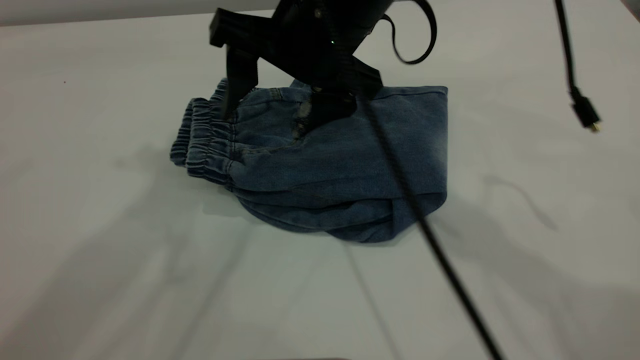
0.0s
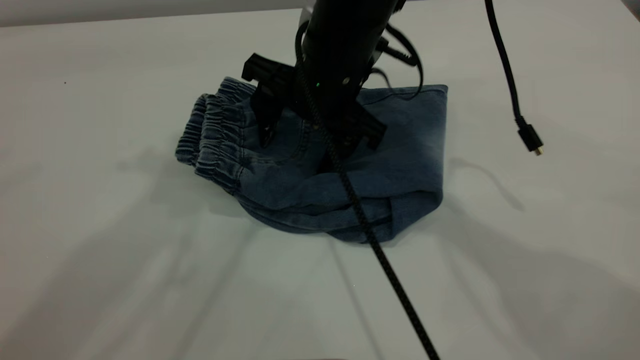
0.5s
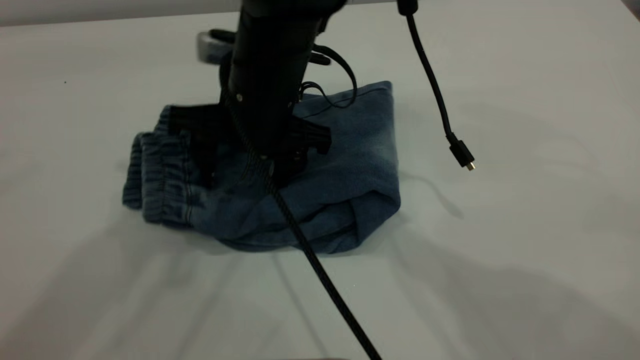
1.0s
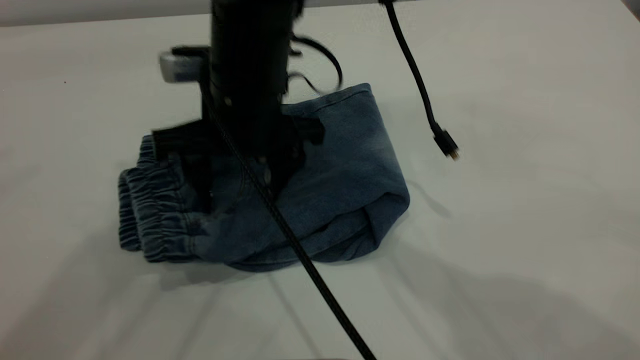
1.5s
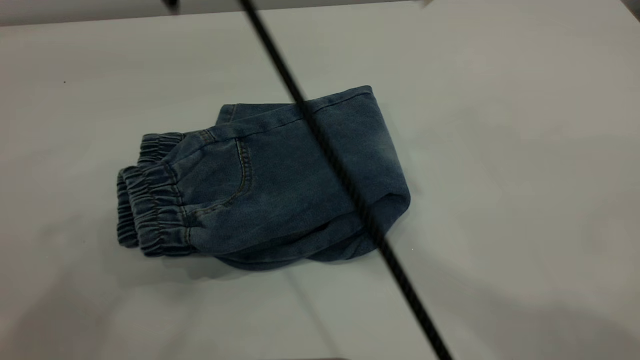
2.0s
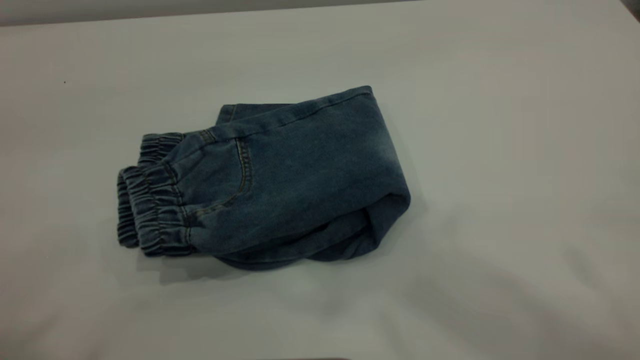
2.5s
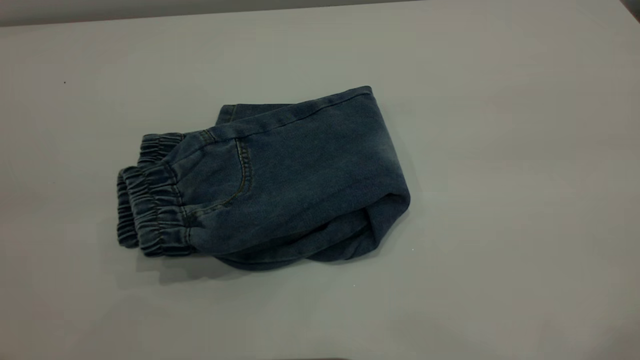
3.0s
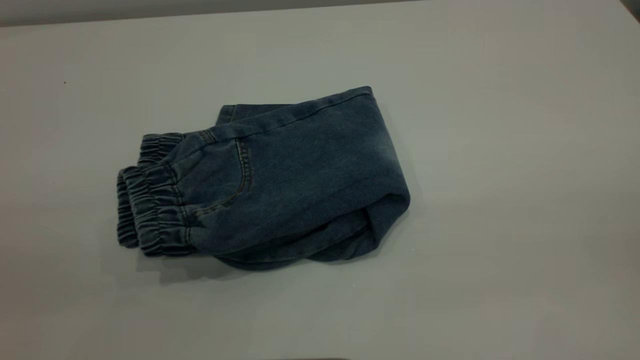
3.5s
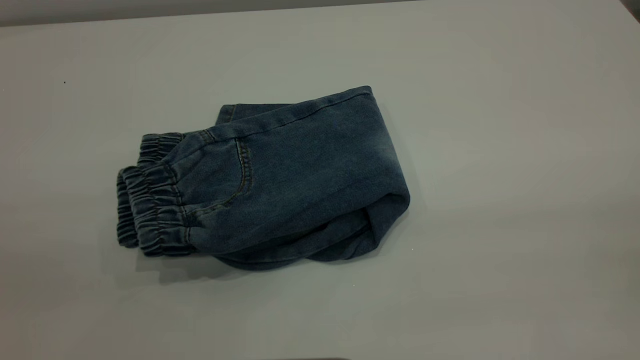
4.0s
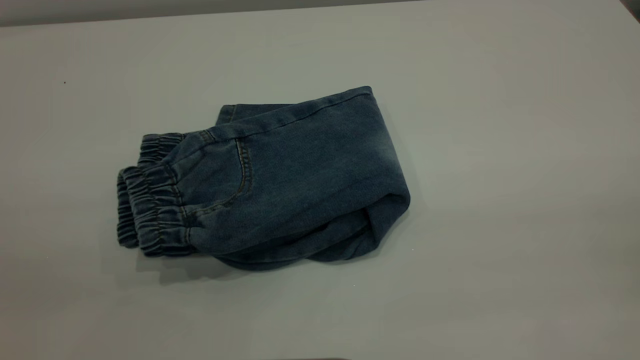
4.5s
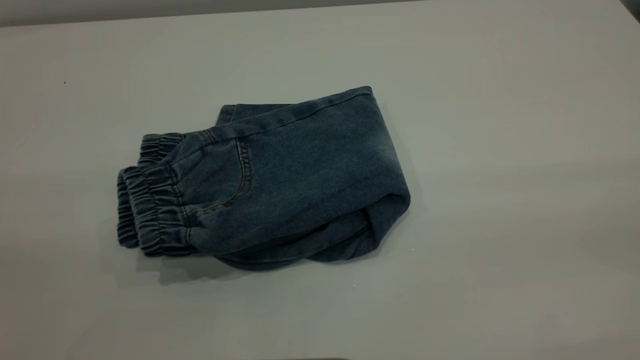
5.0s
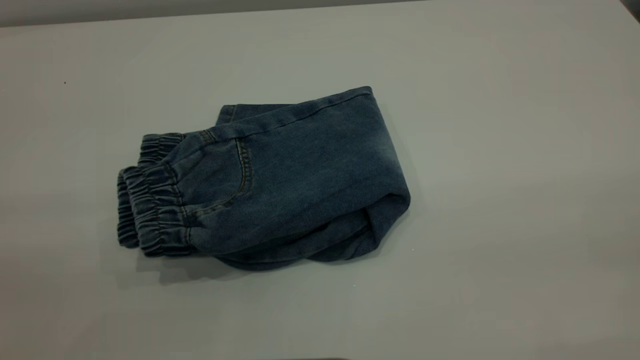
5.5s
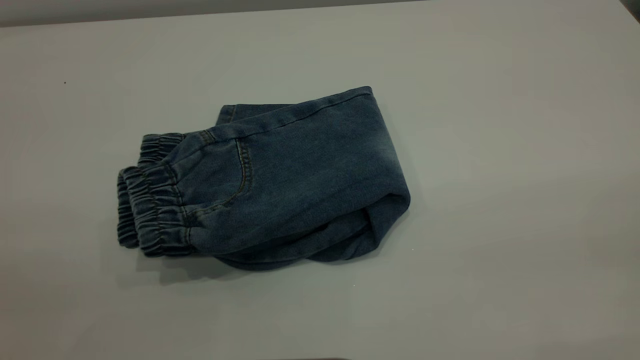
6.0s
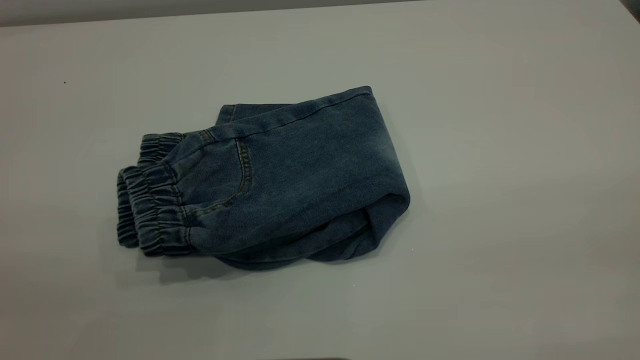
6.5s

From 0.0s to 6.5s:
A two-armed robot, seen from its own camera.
From 0.0s to 2.0s: The left gripper moves backward and upward, about 15 cm, while the right gripper moves upward and to the left, approximately 15 cm.
From 2.0s to 4.5s: The left gripper heads downward and backward, covering approximately 25 cm. The right gripper moves to the right and backward, about 50 cm.

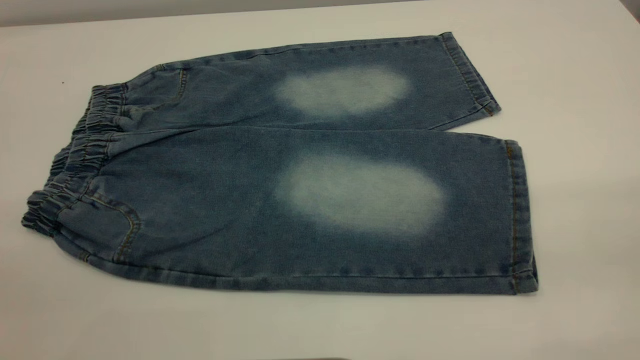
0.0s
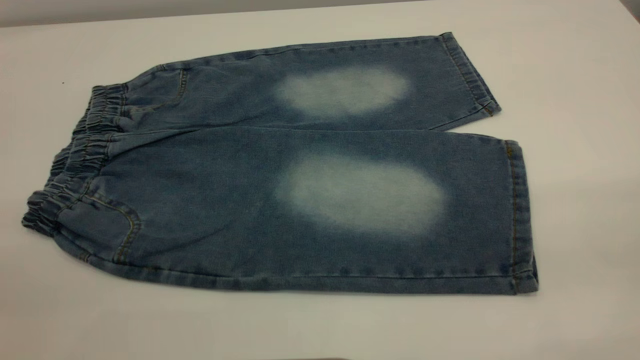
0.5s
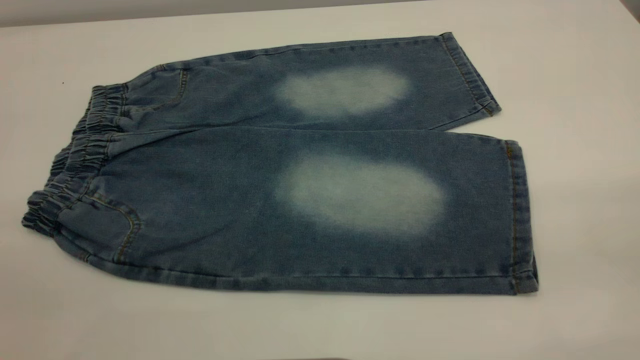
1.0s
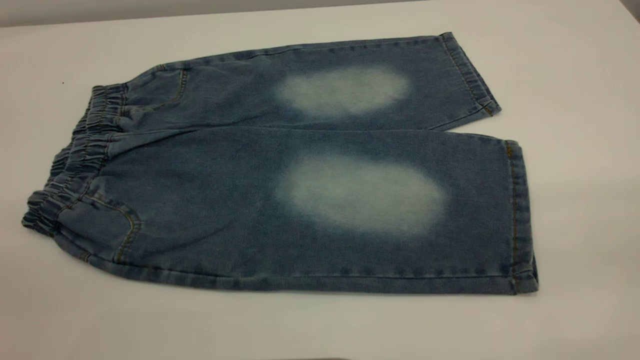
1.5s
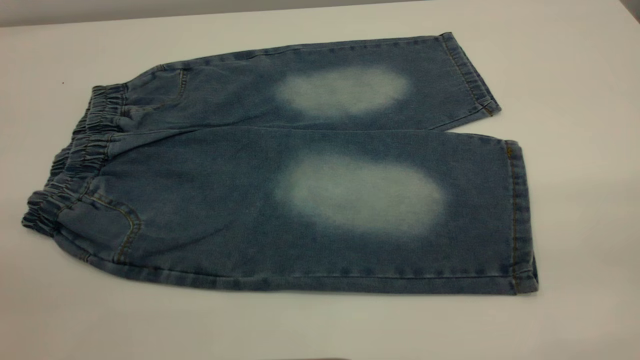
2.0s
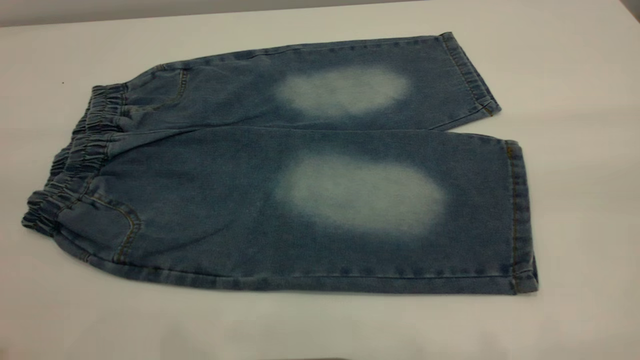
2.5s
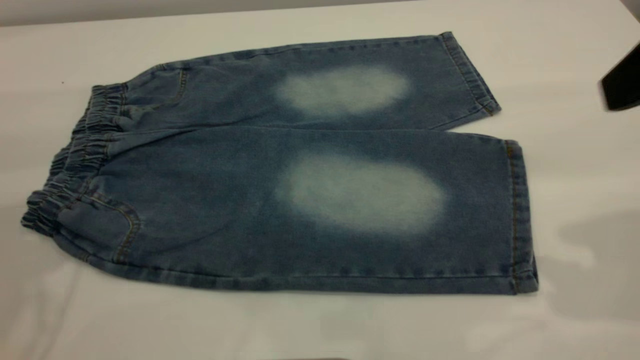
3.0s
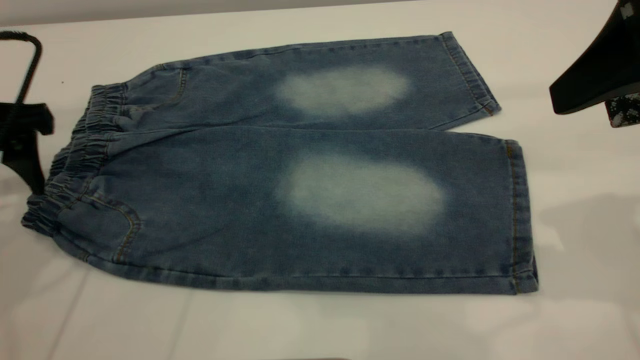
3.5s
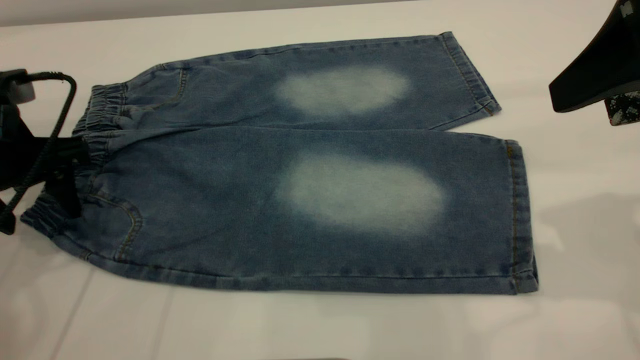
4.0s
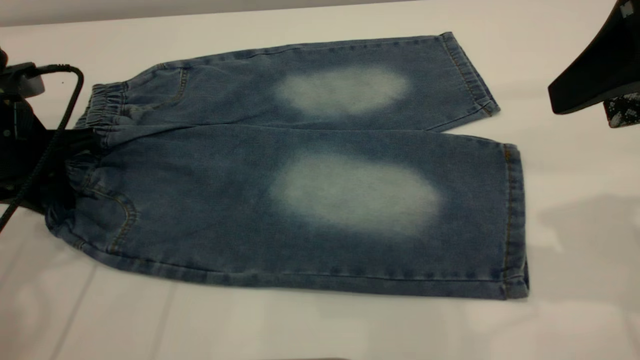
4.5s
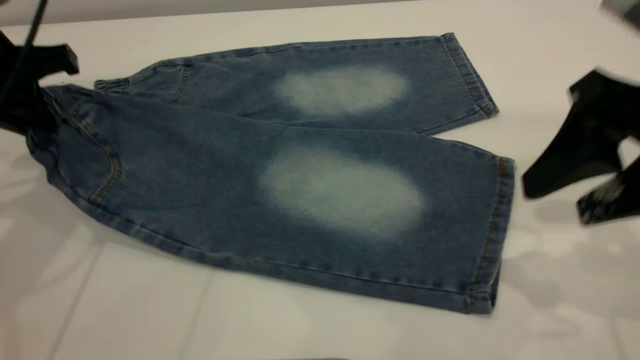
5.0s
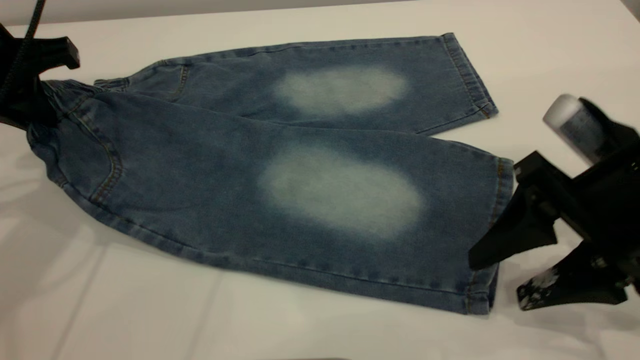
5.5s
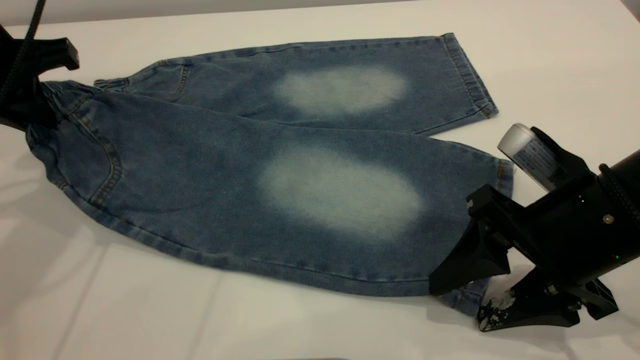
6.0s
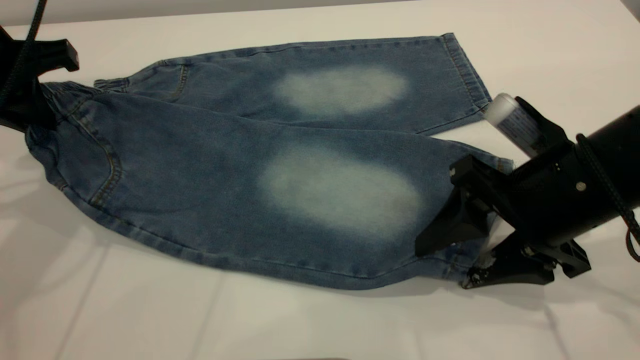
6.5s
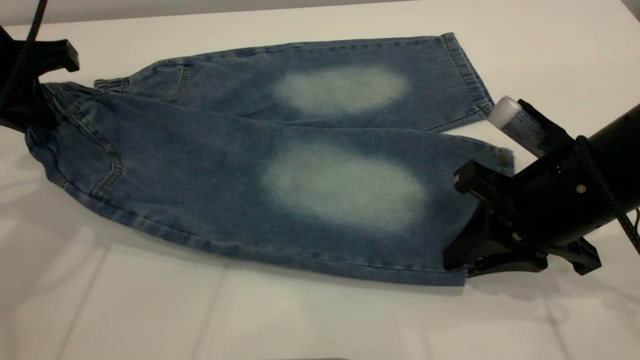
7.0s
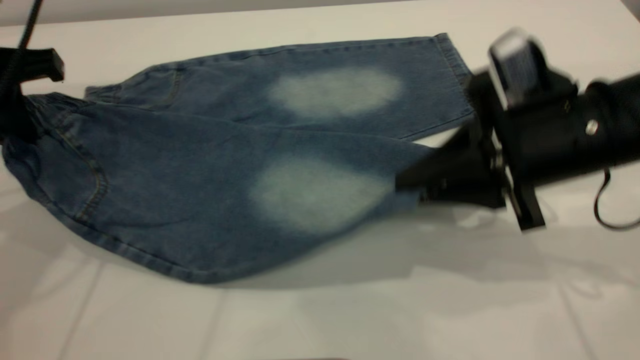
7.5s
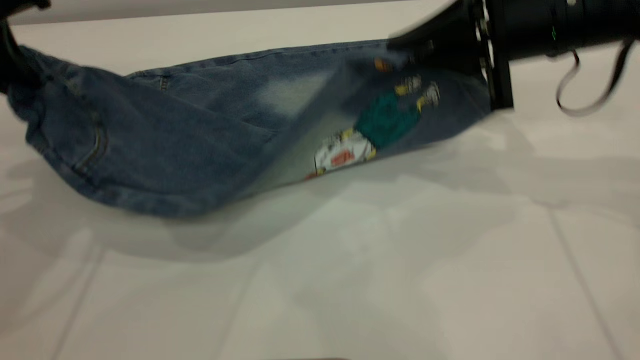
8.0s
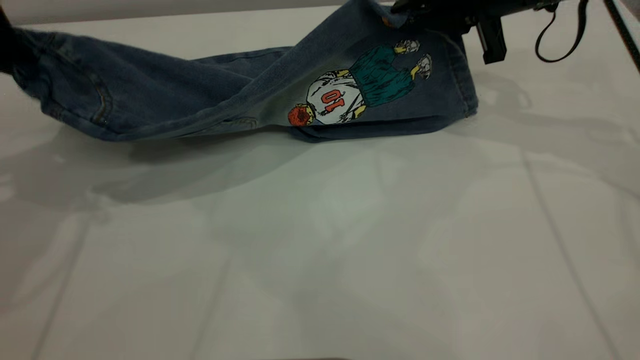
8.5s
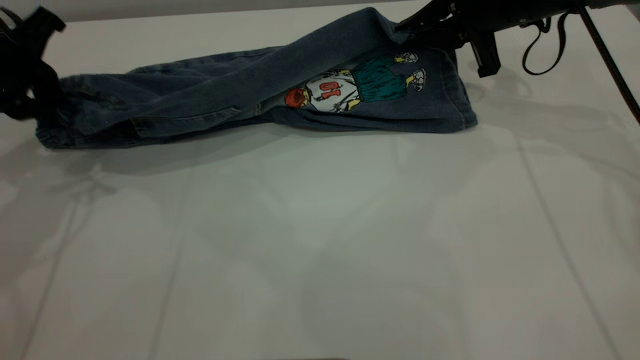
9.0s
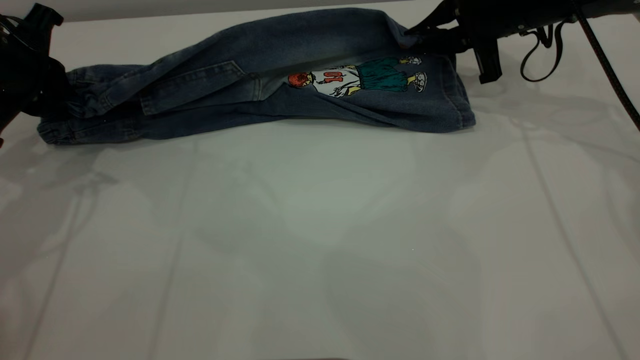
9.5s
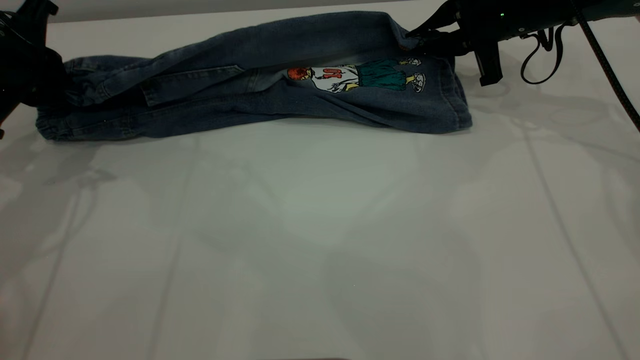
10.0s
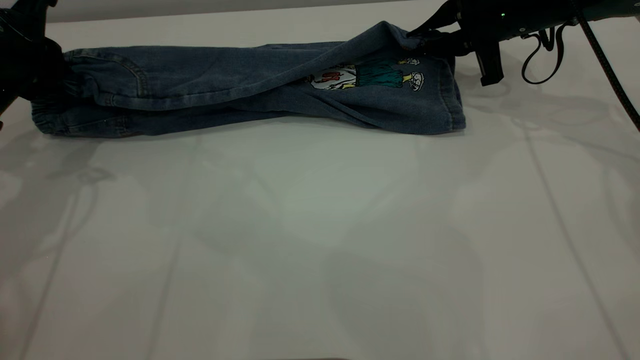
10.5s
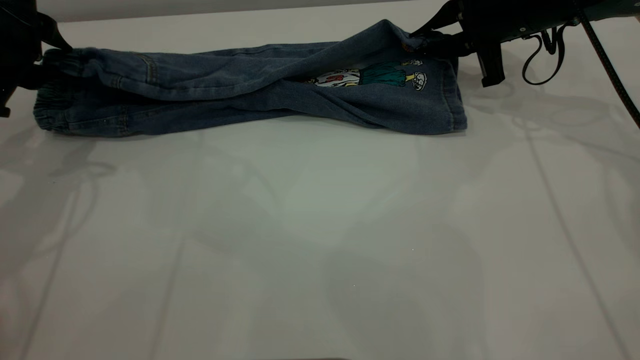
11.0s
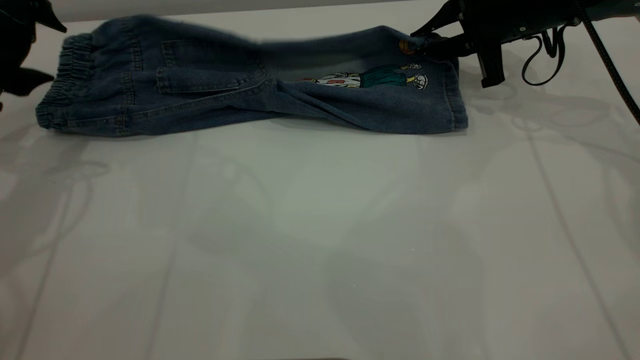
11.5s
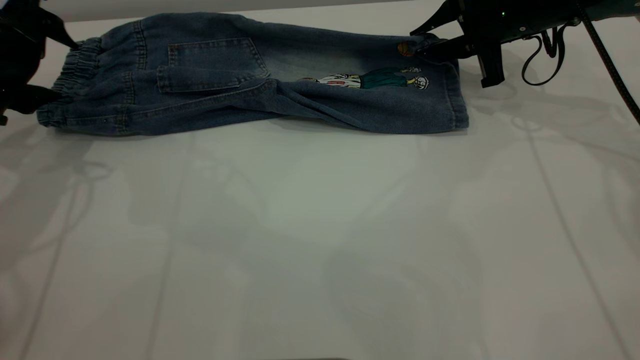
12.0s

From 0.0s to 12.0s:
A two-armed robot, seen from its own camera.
From 0.0s to 2.0s: Neither gripper changes place.
From 2.0s to 4.0s: The left gripper is displaced forward and downward by about 35 cm. The right gripper travels forward by some 20 cm.
From 4.0s to 6.0s: The left gripper is displaced upward by approximately 5 cm, and closes its fingers. Meanwhile the right gripper heads downward, covering roughly 15 cm.
From 6.0s to 8.0s: The left gripper shifts some 5 cm upward; the right gripper travels forward and upward by some 15 cm, and closes up.
From 8.0s to 10.0s: The right gripper is displaced forward and downward by about 10 cm. Meanwhile the left gripper travels downward and forward by approximately 10 cm.
From 10.0s to 12.0s: The left gripper opens up.

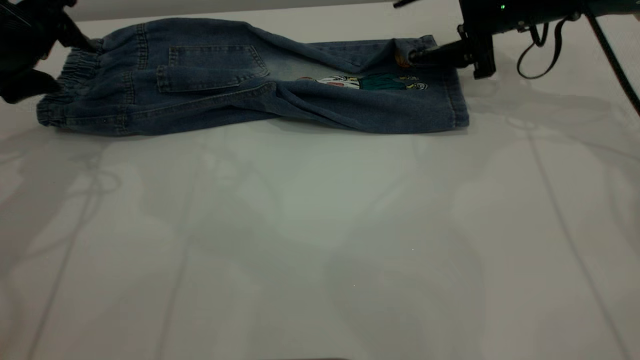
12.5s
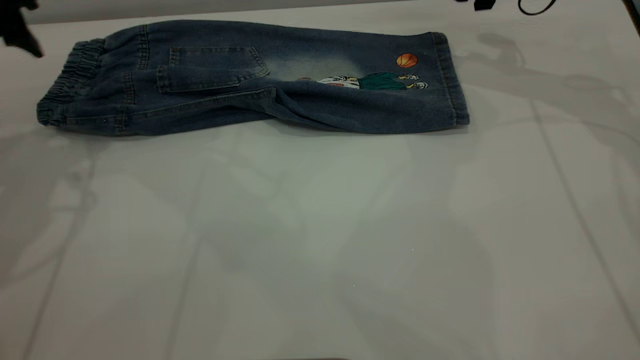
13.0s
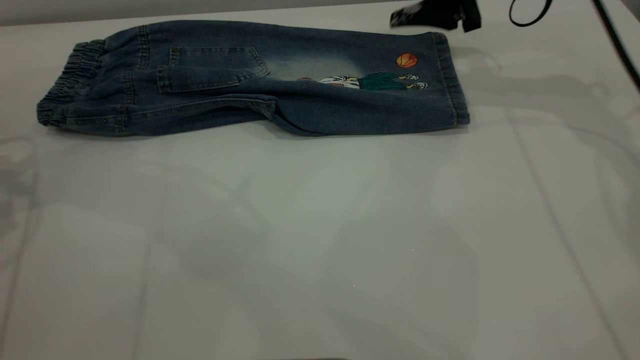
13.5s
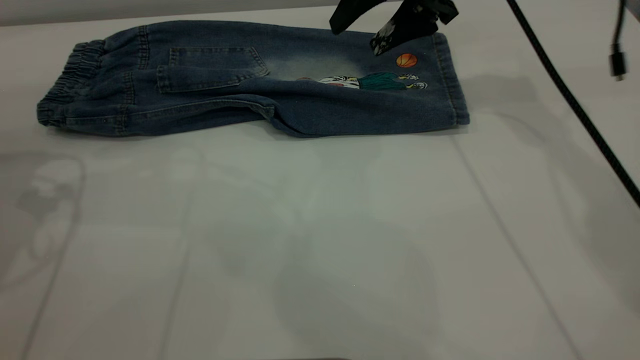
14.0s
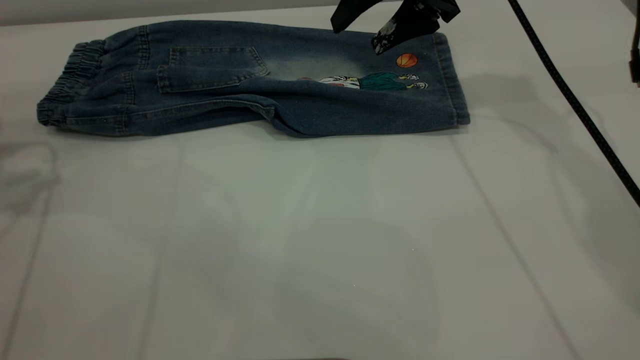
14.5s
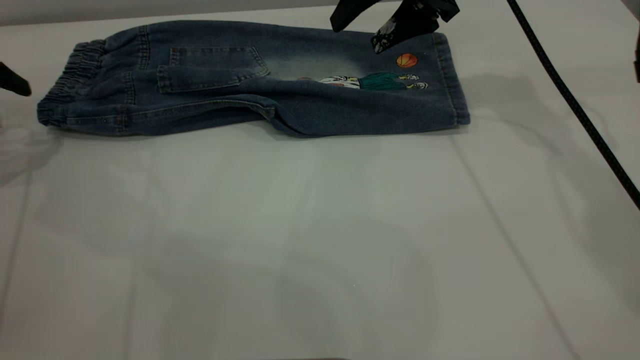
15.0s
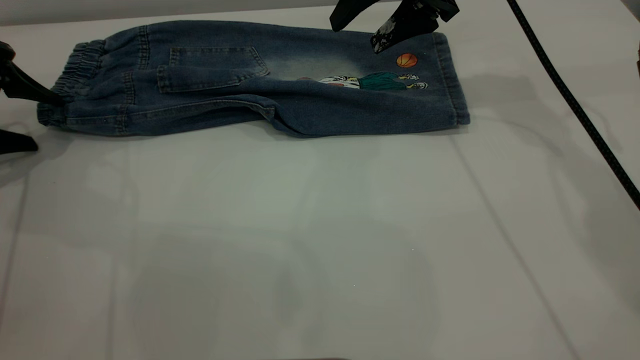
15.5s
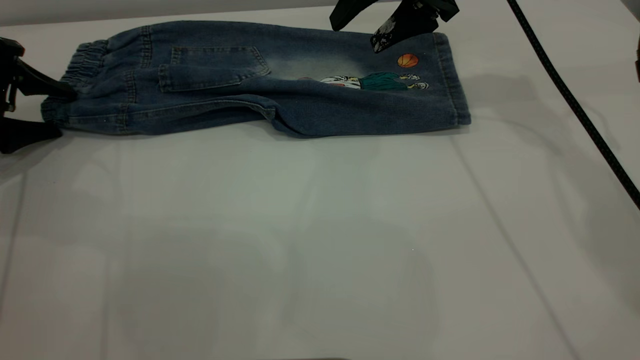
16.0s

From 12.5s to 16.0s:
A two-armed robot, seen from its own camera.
From 12.5s to 14.5s: The left gripper goes roughly 10 cm to the left; the right gripper moves to the left and upward, some 10 cm.
From 14.5s to 16.0s: The left gripper goes about 10 cm downward.
